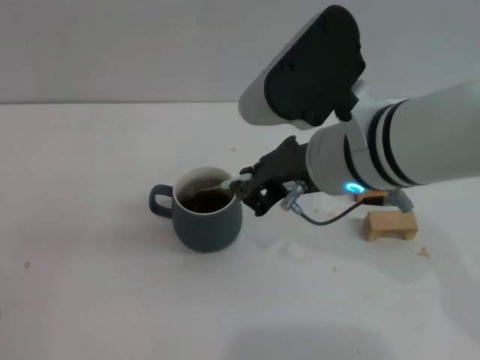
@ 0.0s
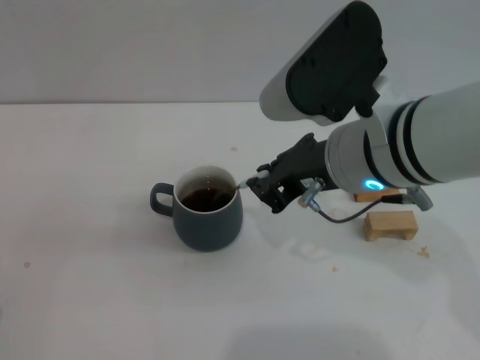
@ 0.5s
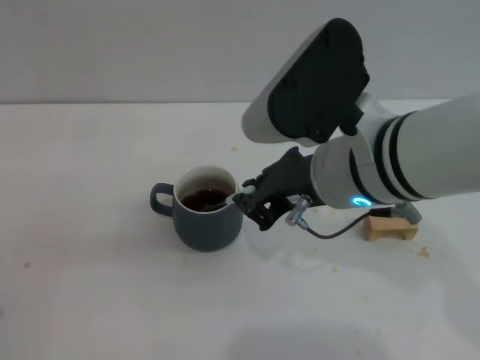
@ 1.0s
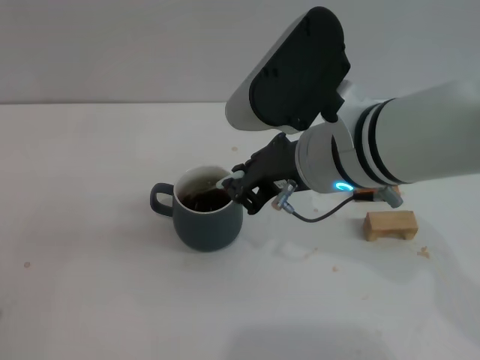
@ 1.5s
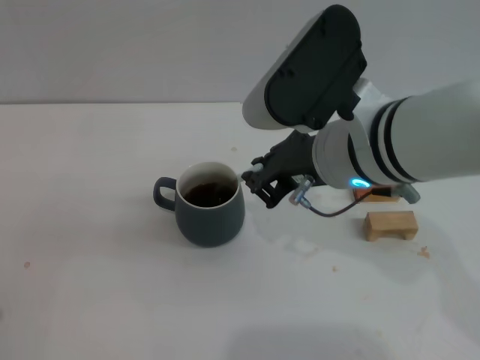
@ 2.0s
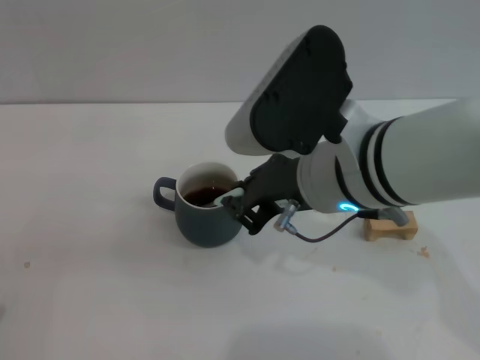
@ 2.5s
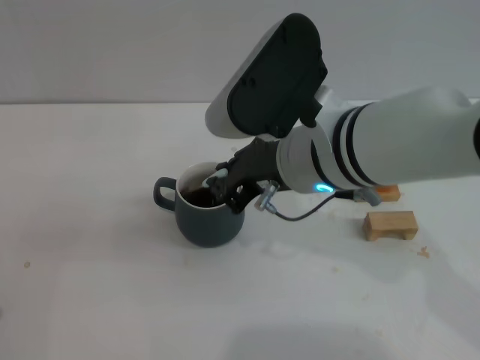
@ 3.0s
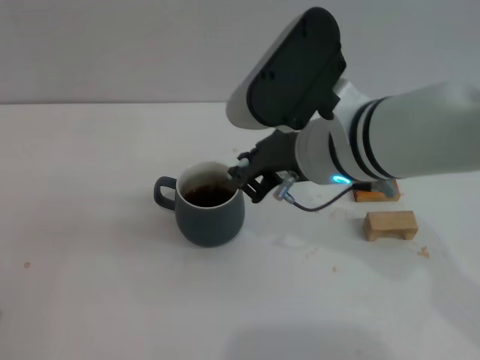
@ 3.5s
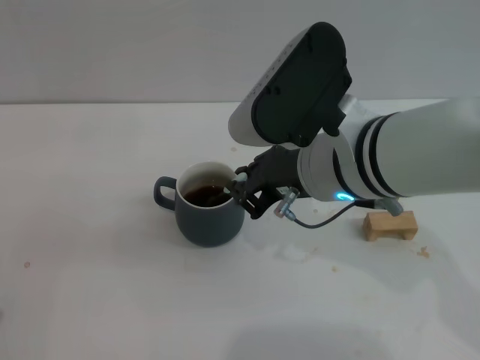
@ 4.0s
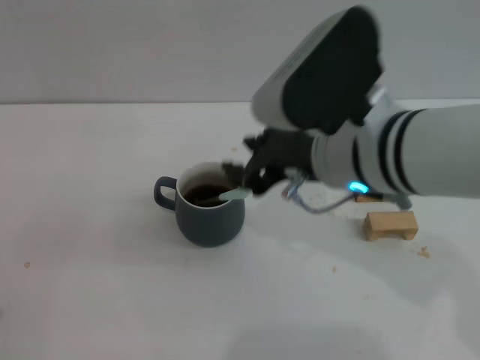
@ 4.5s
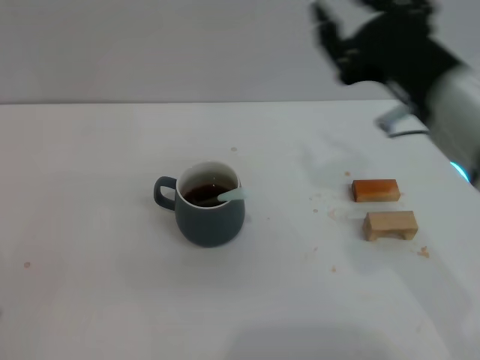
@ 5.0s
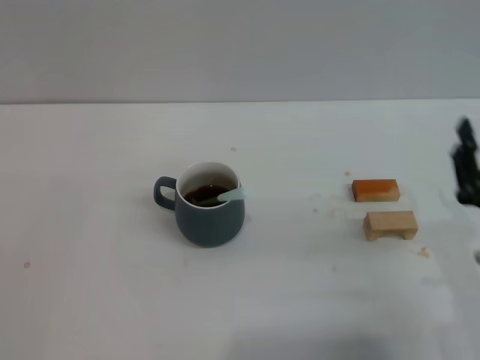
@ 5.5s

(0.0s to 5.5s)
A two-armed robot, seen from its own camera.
Task of the whole recording: Move the grey cup to the center, lift the blue spoon, stir it three times in the cup, and put the spoon into the cup.
Step, 0.0s - 4.5s: Stir the coffee in the cup with the right gripper.
0.0s - 3.5s: There are only small adjustments of the grippers.
3.5s - 5.5s: The right gripper travels to the right, downward and backward by approximately 25 cm, and opens its fingers.
